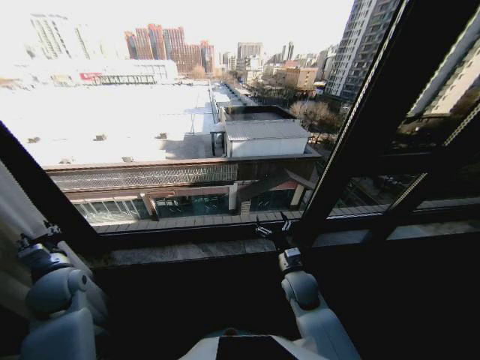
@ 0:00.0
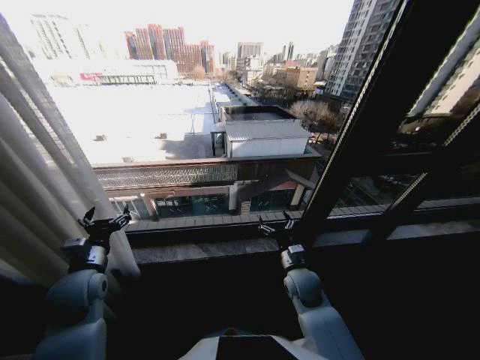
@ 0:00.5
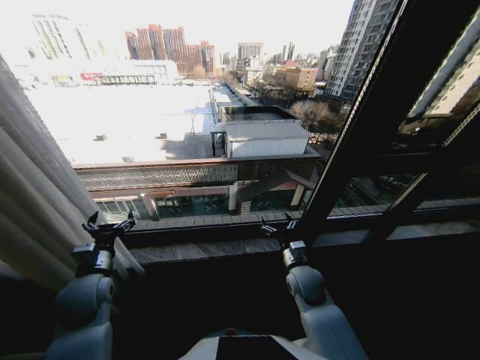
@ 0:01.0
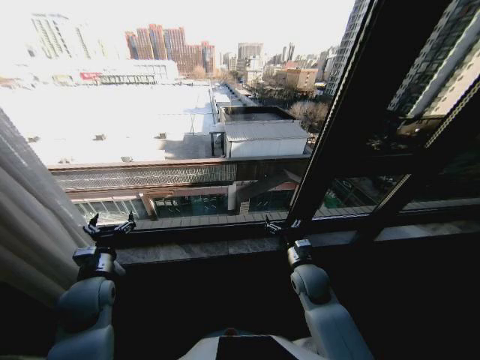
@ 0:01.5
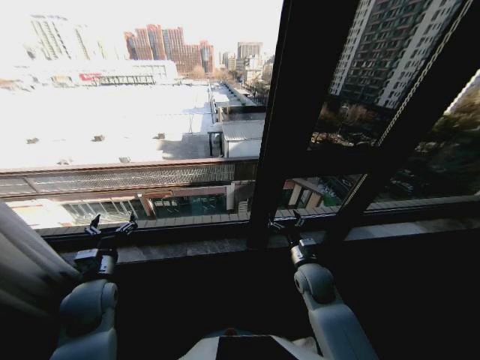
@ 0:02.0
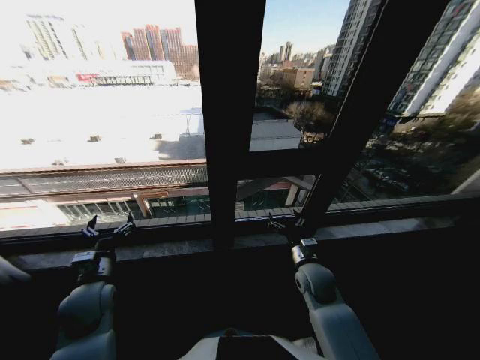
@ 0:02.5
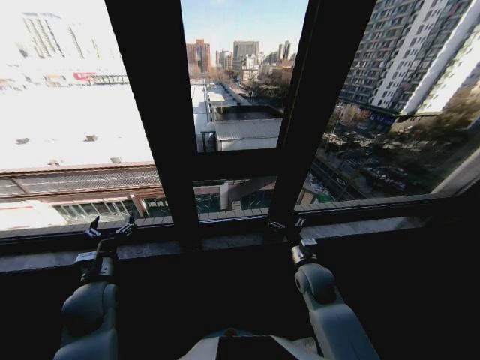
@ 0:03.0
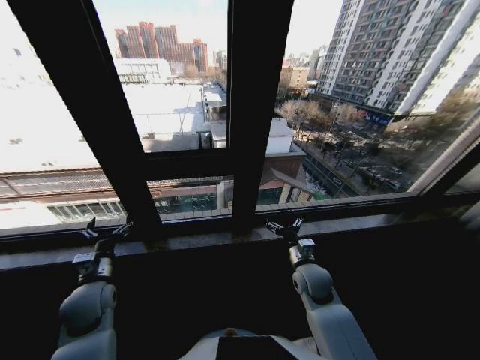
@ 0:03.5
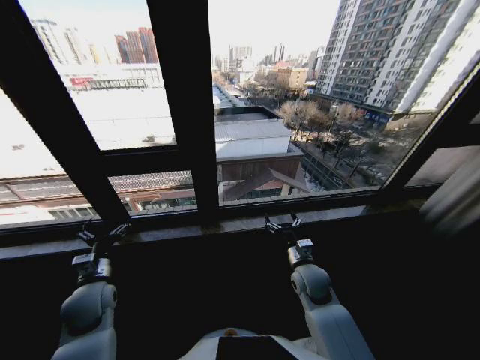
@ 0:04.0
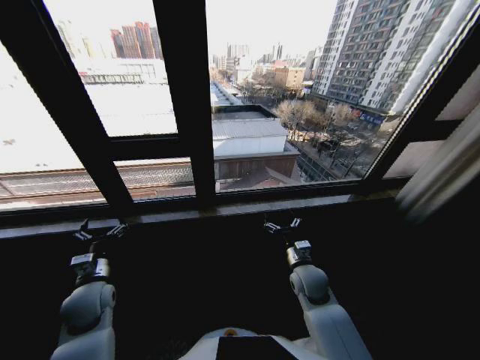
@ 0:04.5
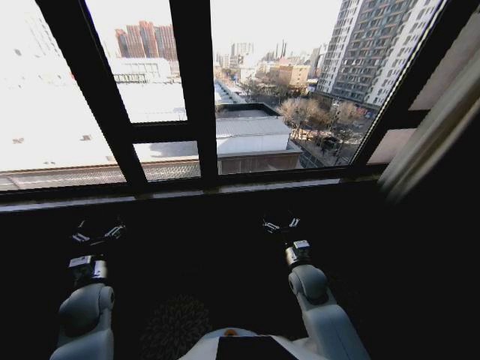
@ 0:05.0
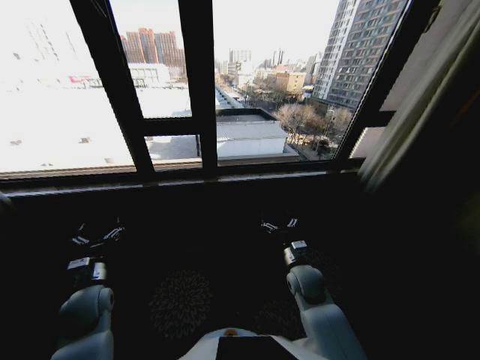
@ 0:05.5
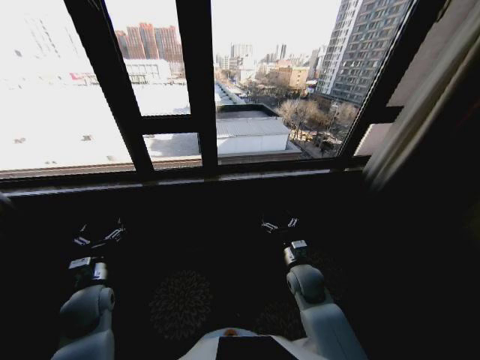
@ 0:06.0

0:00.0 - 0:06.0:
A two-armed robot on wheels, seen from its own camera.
Task of the whole recording: Open the curtains by pulling them apart, changing their state from closed to fully open.
0:00.0 - 0:02.0: The left gripper is displaced to the right by roughly 10 cm, and opens its fingers.

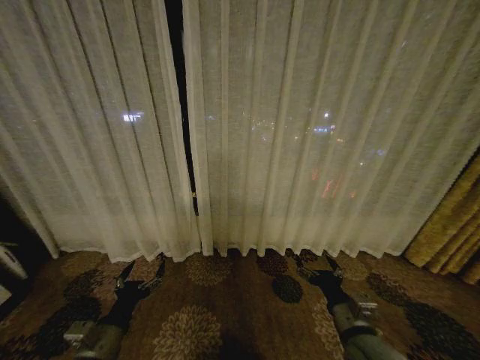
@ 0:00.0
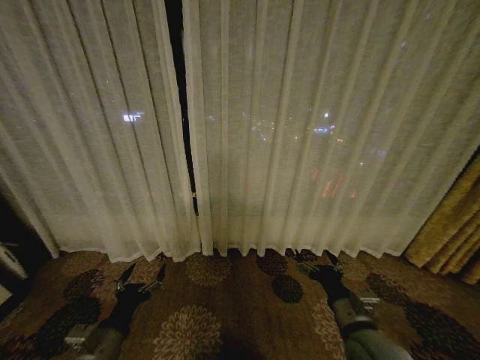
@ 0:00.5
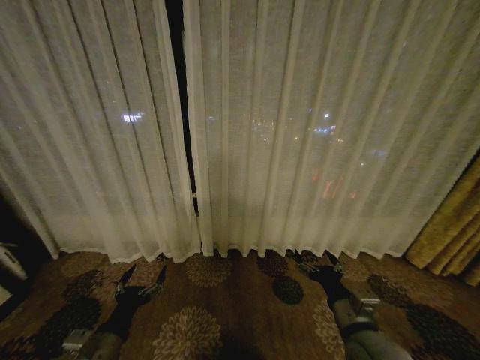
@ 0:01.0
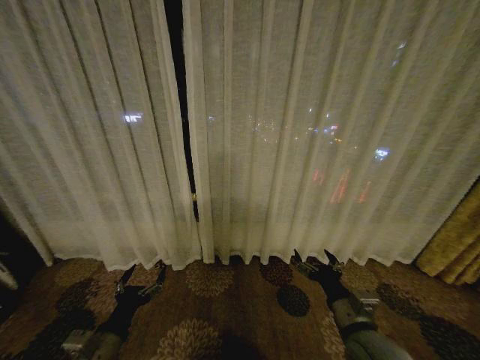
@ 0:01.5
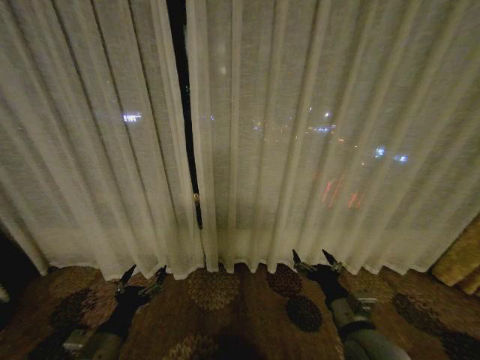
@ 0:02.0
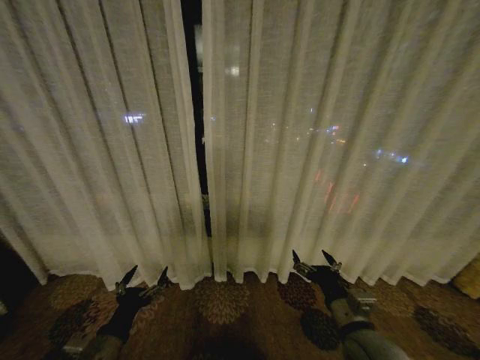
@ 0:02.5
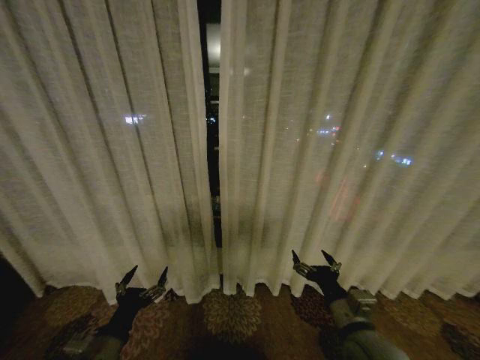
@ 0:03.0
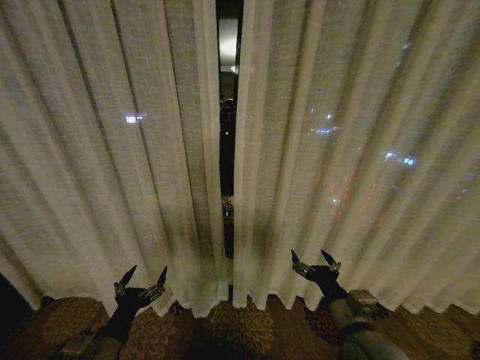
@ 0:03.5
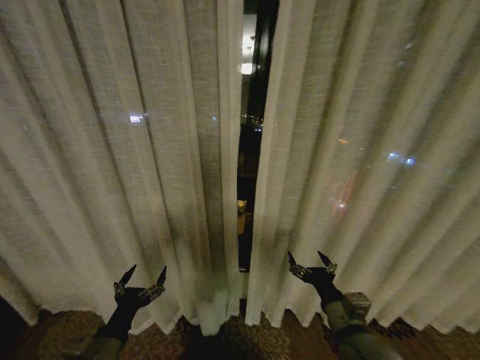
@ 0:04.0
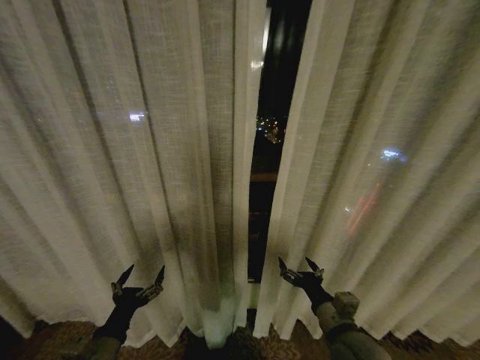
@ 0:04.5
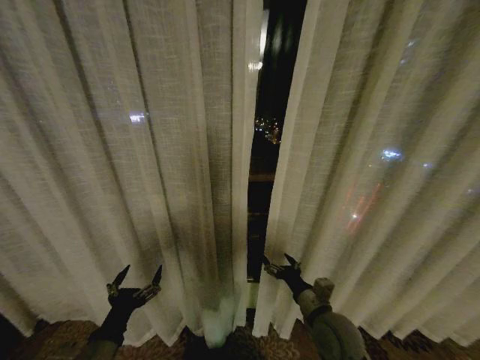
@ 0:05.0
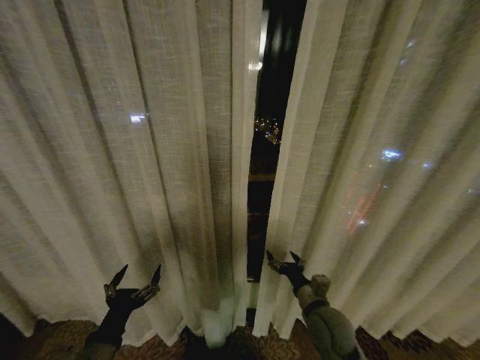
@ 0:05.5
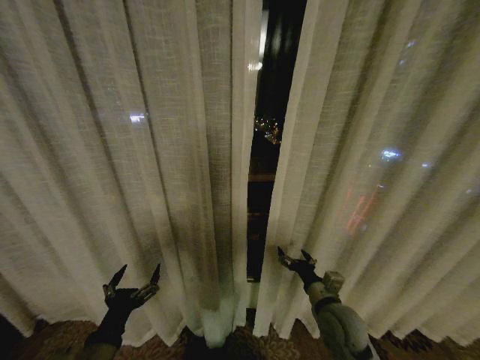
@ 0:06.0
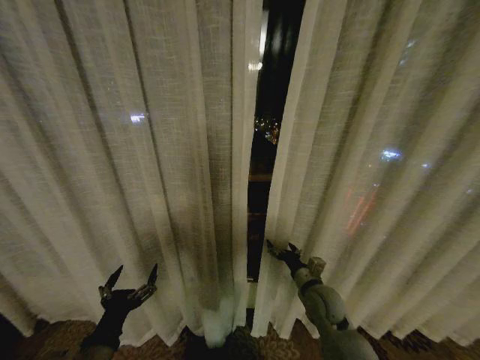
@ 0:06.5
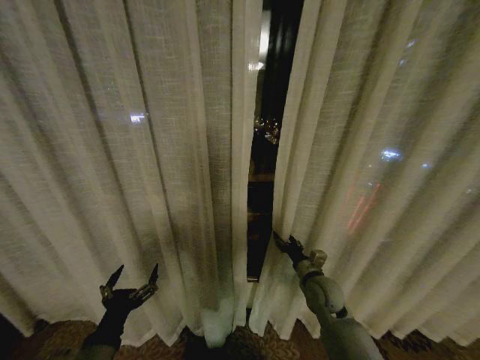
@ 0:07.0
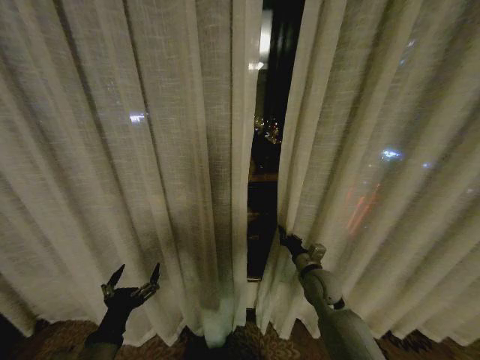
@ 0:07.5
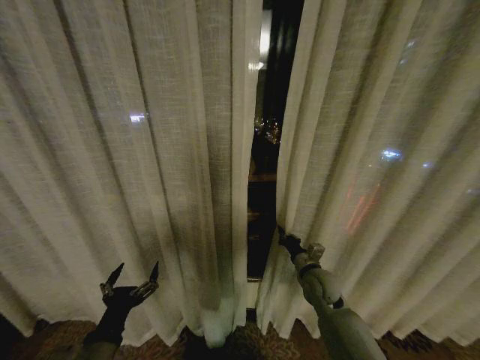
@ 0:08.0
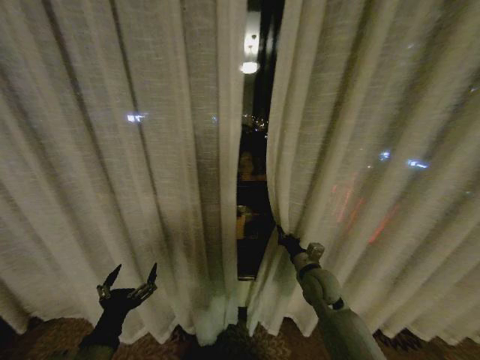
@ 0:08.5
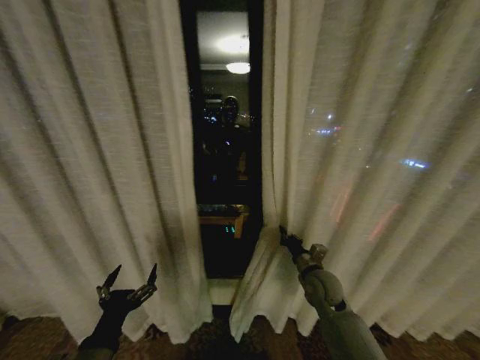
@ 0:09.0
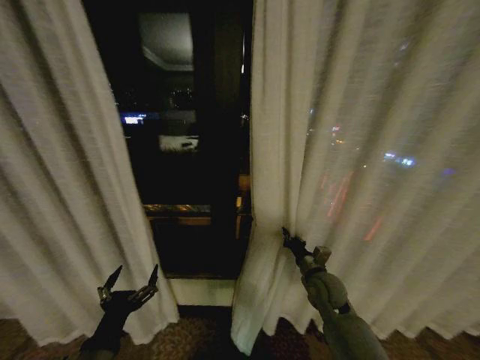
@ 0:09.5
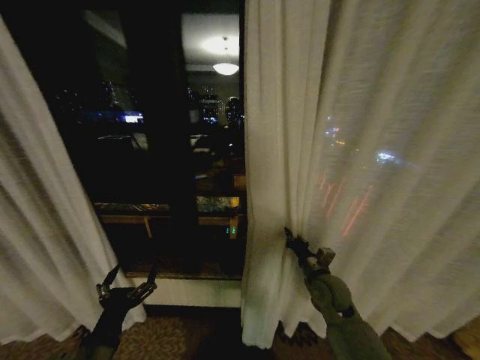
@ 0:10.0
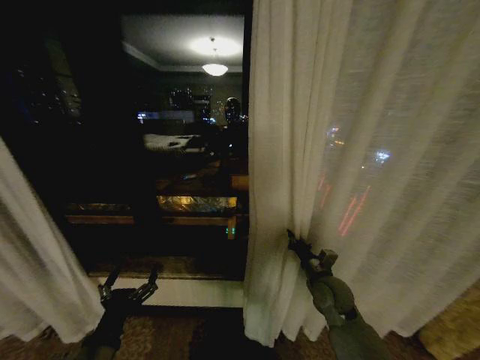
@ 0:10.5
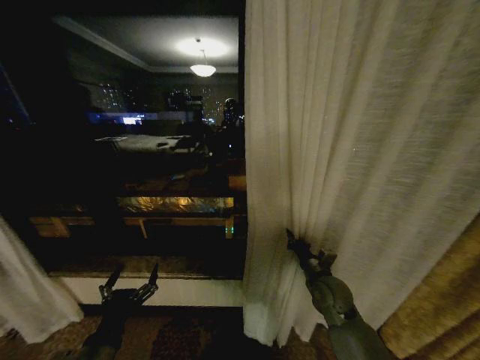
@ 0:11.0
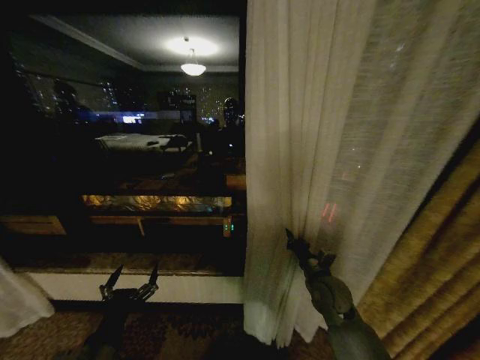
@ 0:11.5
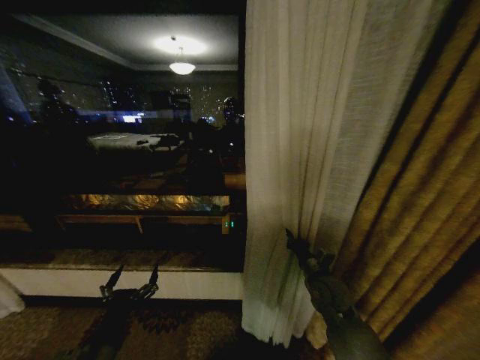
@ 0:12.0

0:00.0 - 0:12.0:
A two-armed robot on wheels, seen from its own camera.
Task of the whole recording: Open the curtains by pulling them apart, changing their state from closed to fully open.
0:04.0 - 0:06.0: The right gripper heads forward, covering roughly 10 cm.
0:06.0 - 0:08.0: The right gripper goes about 10 cm forward, and closes up.

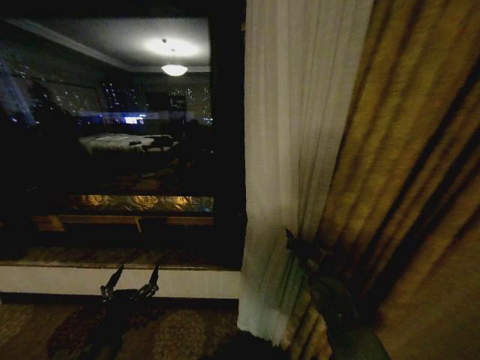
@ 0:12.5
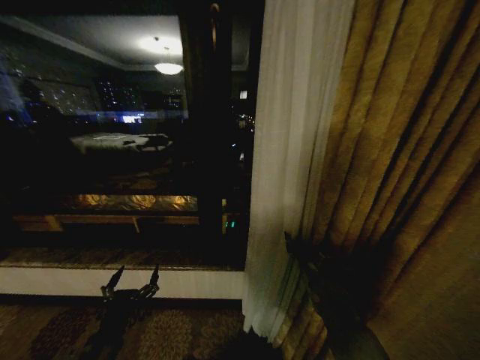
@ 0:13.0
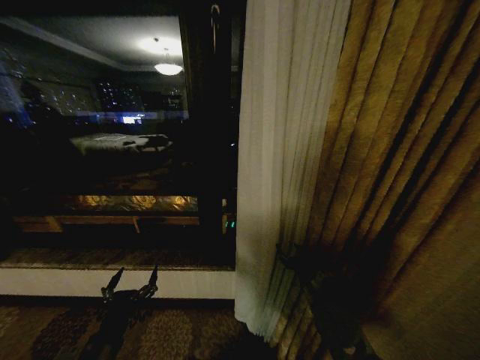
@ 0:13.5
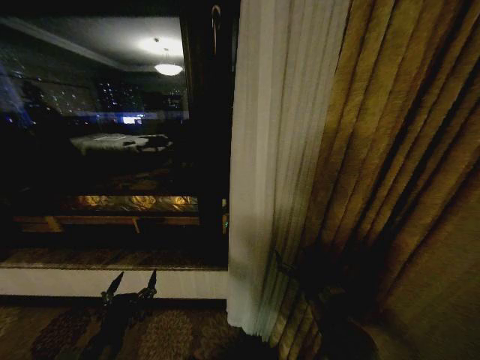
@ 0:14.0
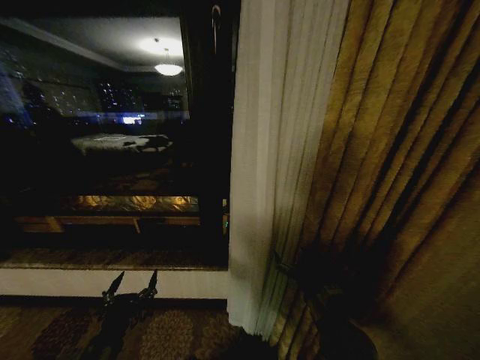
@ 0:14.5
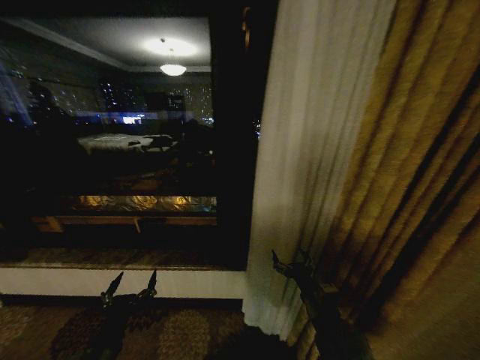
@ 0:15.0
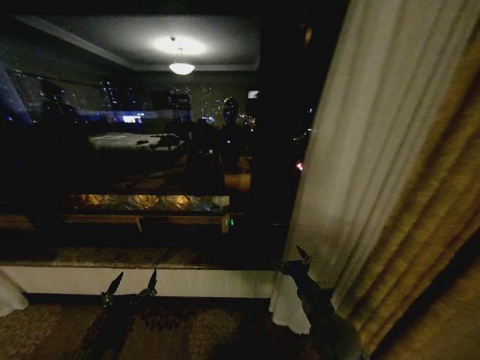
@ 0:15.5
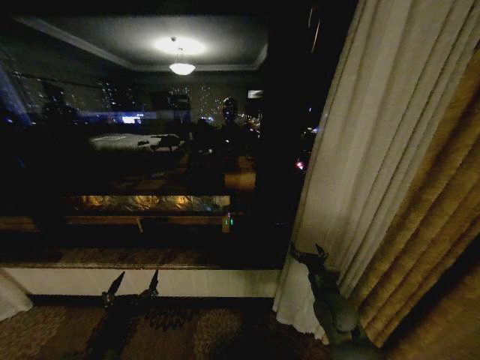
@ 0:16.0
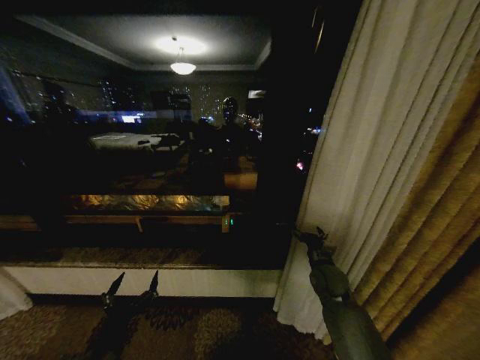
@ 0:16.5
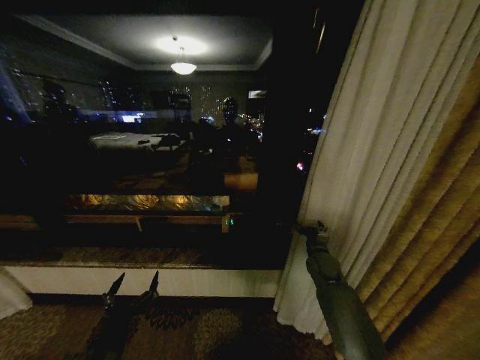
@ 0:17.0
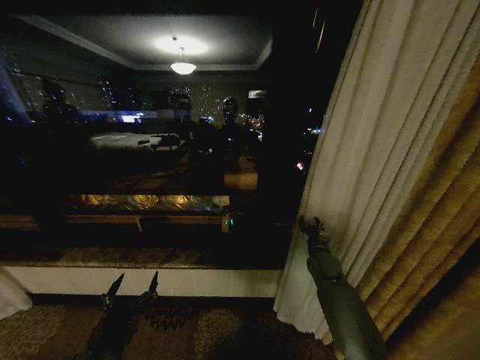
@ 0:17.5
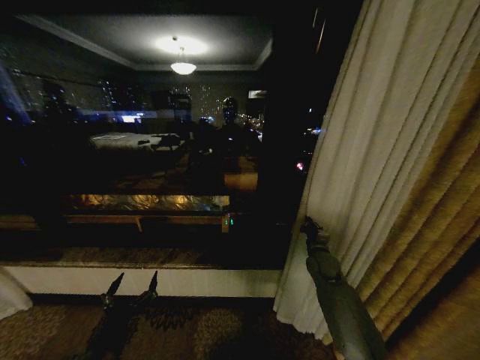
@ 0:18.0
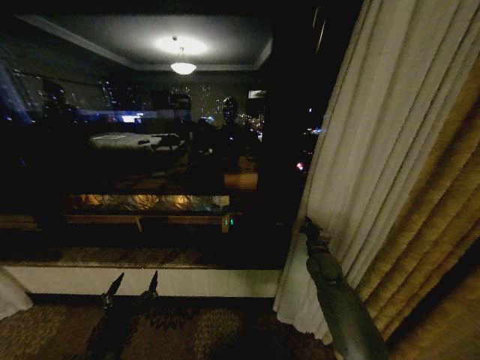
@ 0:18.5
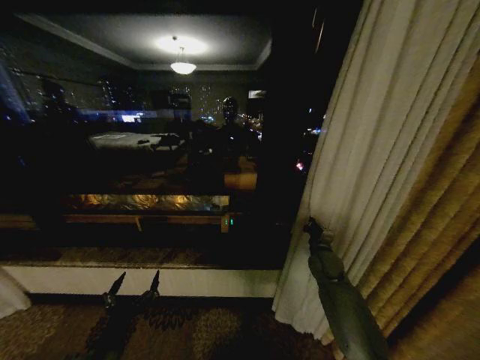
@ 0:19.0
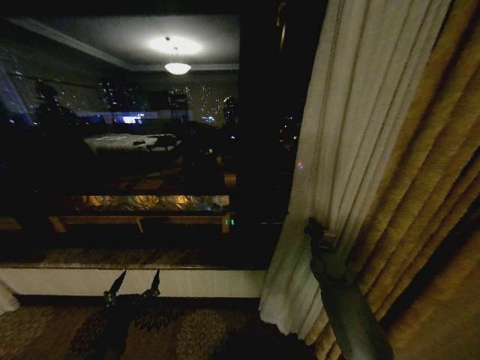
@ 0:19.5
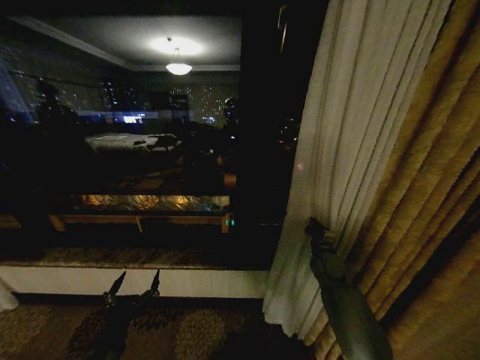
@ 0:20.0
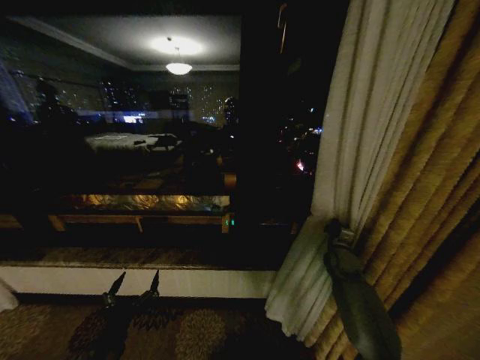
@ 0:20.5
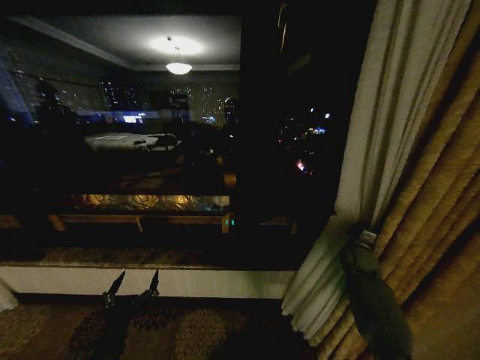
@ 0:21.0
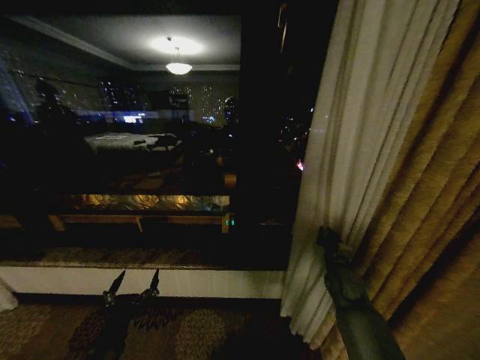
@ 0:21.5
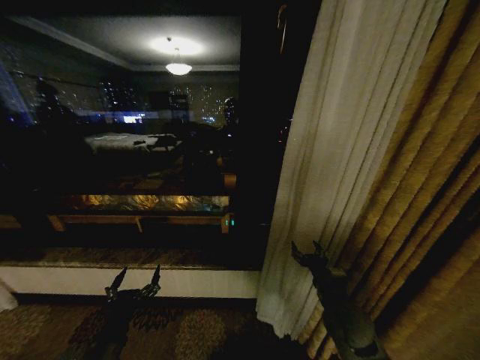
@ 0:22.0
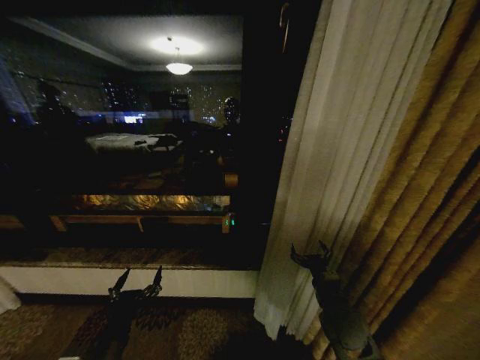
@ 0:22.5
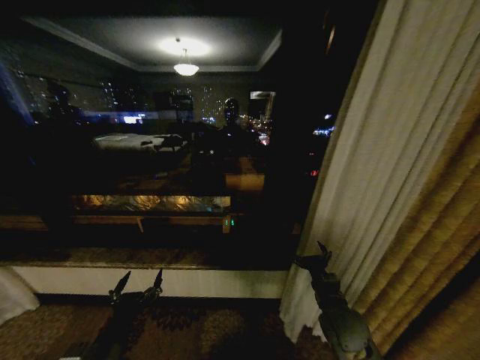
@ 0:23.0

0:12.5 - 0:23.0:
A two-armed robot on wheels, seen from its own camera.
Task of the whole recording: Open the curtains by pulling them apart, changing their state from closed to fully open.
0:12.5 - 0:14.5: The right gripper travels backward by roughly 10 cm, and opens.
0:14.5 - 0:16.5: The right gripper moves forward, roughly 15 cm.
0:16.5 - 0:19.0: The right gripper shifts some 5 cm forward, and closes its fingers.
0:19.0 - 0:21.0: The right gripper travels to the right by roughly 10 cm.
0:21.0 - 0:23.0: The right gripper heads backward and to the left, covering about 25 cm, and opens its fingers.
